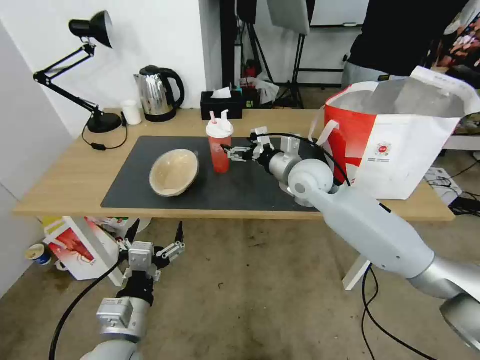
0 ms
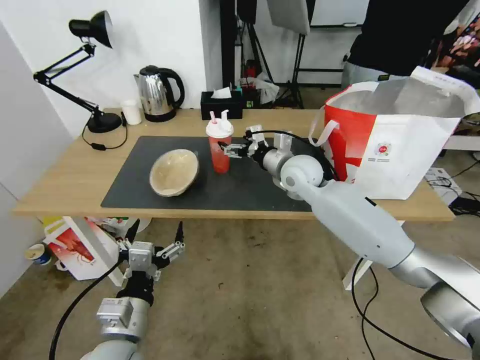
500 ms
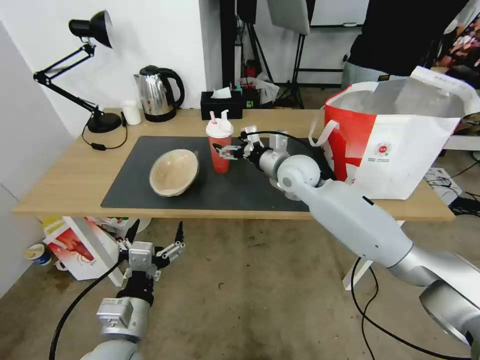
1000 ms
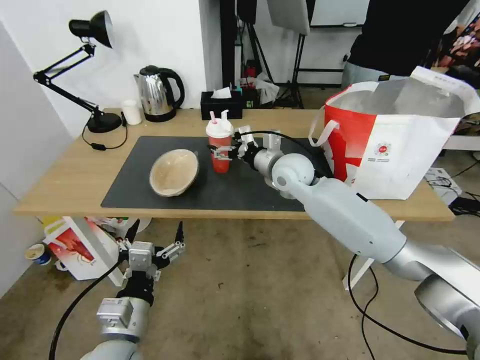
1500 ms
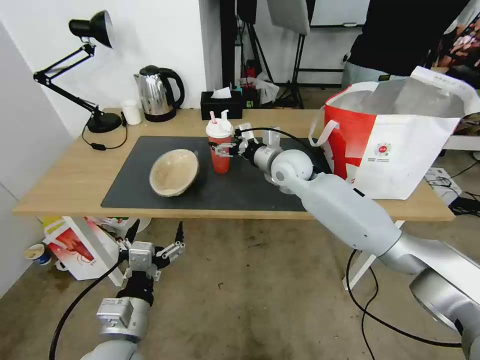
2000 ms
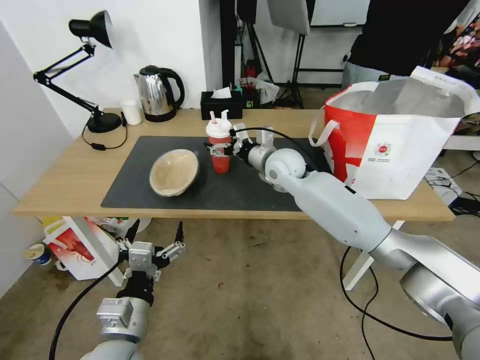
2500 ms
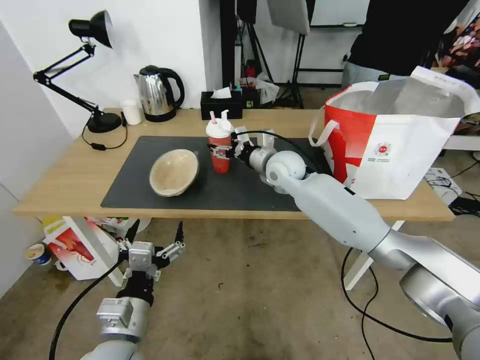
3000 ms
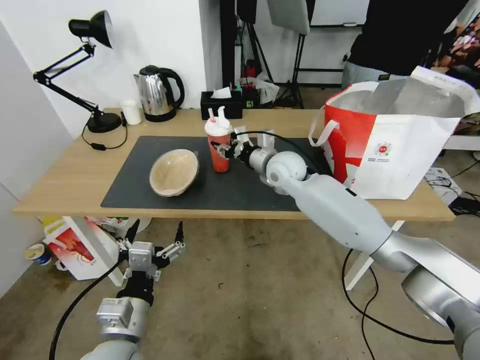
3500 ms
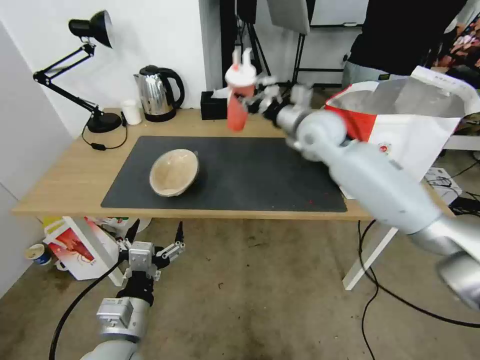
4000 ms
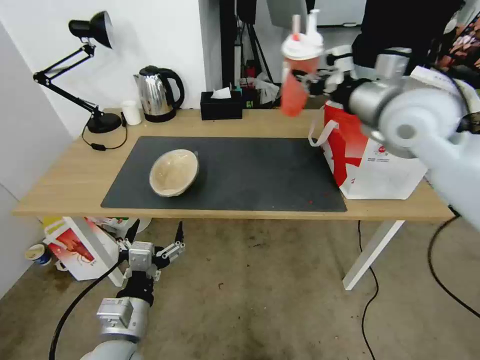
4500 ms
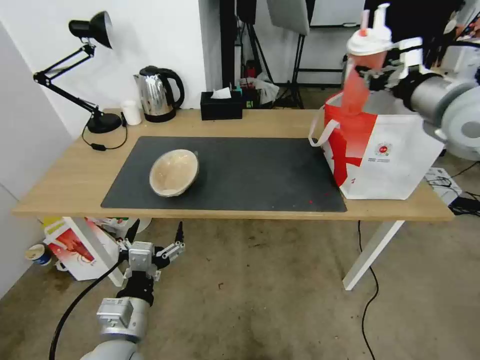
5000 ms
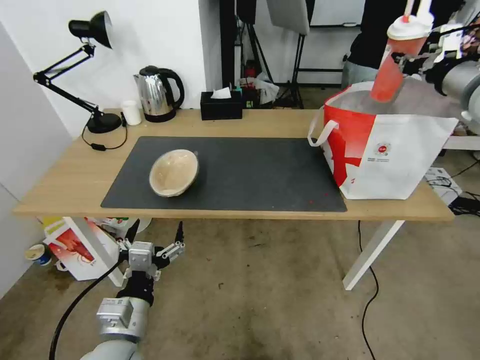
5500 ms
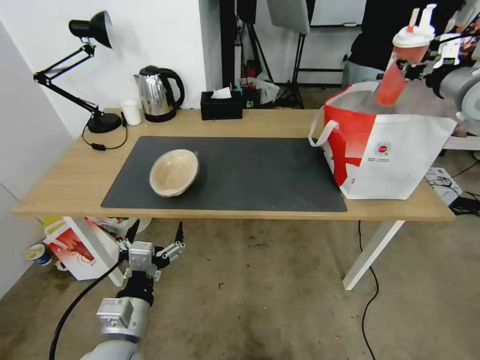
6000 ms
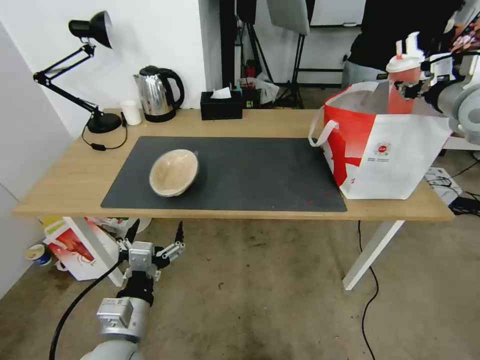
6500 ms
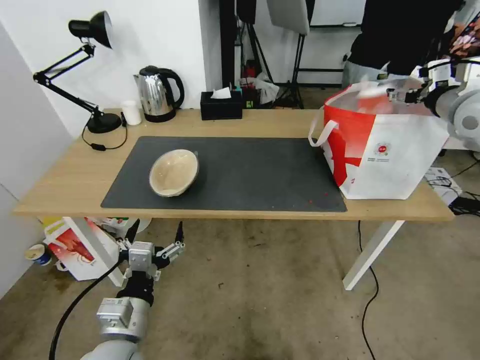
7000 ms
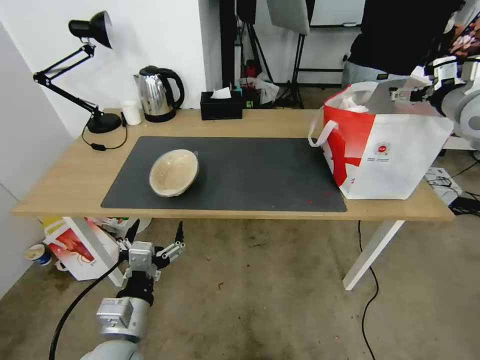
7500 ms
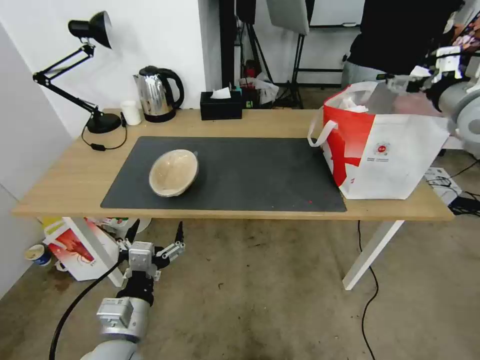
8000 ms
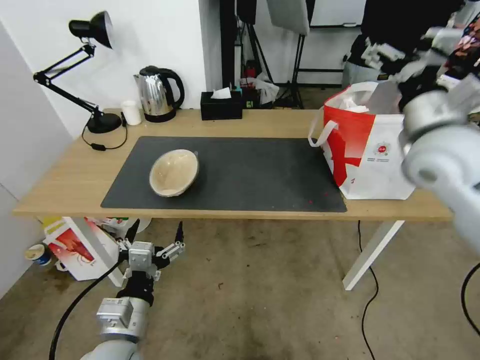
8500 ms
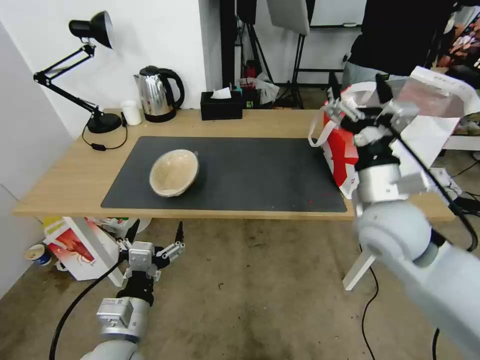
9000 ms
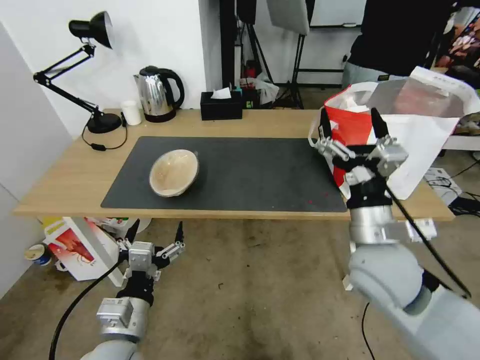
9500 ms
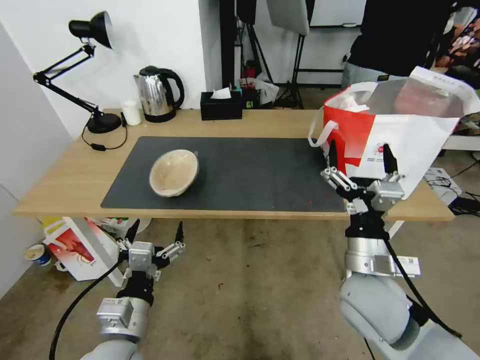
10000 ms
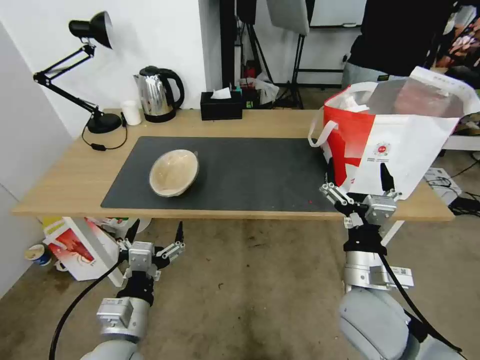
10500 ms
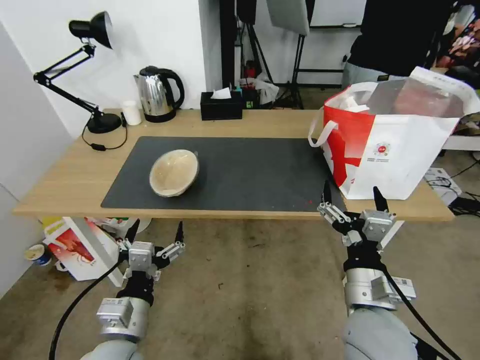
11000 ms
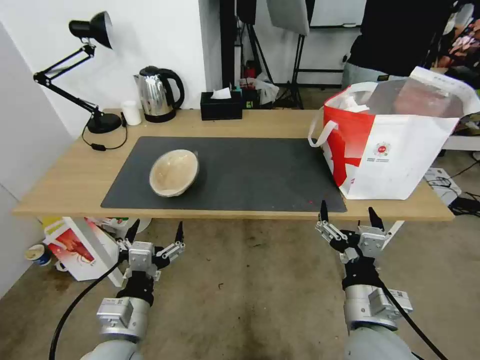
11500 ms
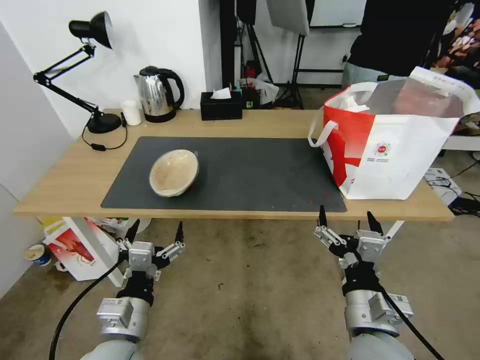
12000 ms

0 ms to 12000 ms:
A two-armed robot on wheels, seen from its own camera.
Task of the whole recording: Pick up the trash from the table and place it into the takeout bag.
0 ms to 2000 ms: The right gripper moves approximately 5 cm.
2000 ms to 4000 ms: The right gripper heads upward, covering about 5 cm, and closes up.
4000 ms to 6000 ms: The right gripper shifts some 30 cm to the right and upward.
6000 ms to 8000 ms: The right gripper opens its fingers.
8000 ms to 10000 ms: The right gripper goes roughly 35 cm downward, backward and to the left.
10000 ms to 12000 ms: The right gripper travels backward by approximately 10 cm.

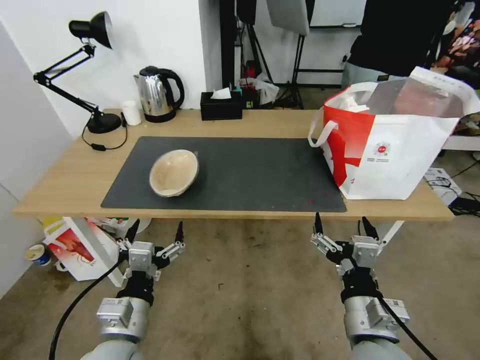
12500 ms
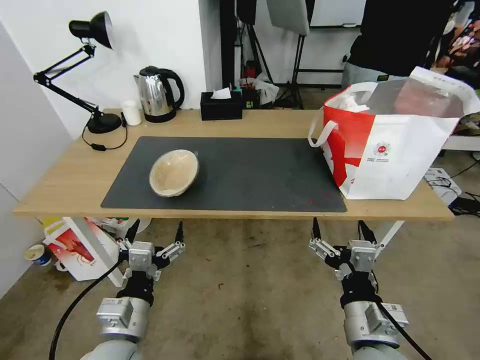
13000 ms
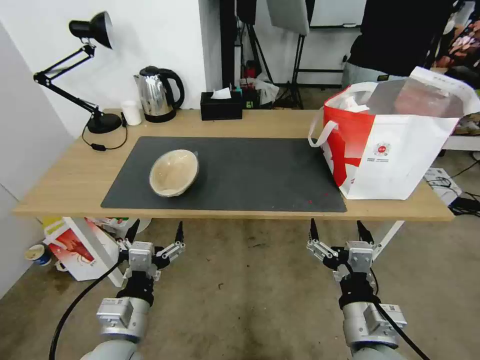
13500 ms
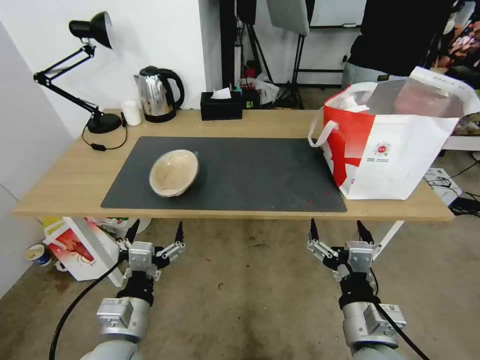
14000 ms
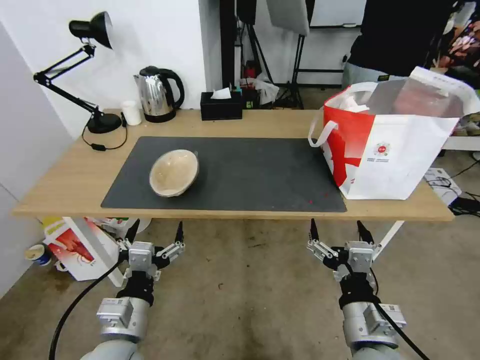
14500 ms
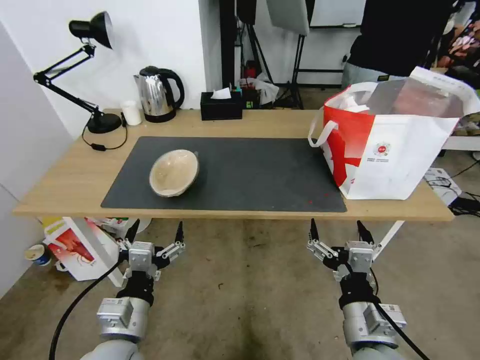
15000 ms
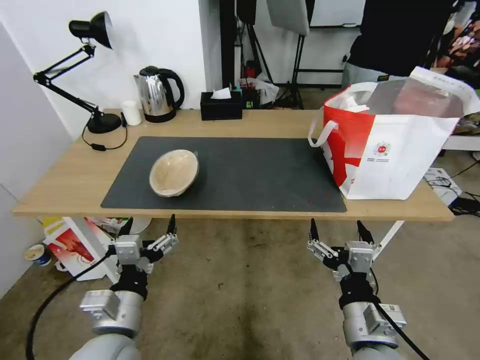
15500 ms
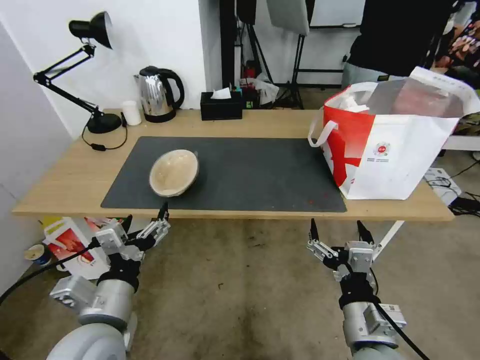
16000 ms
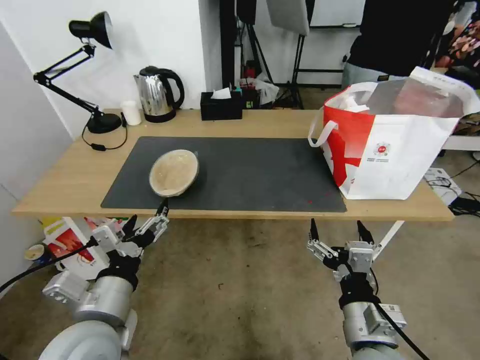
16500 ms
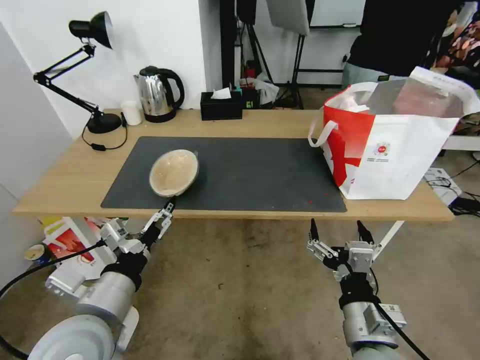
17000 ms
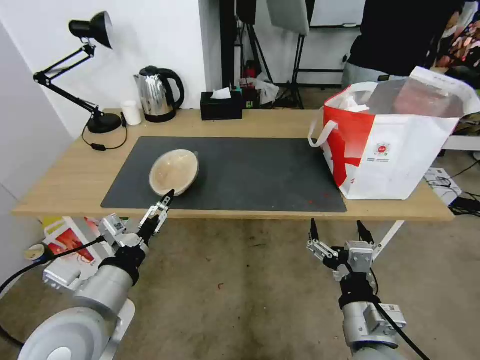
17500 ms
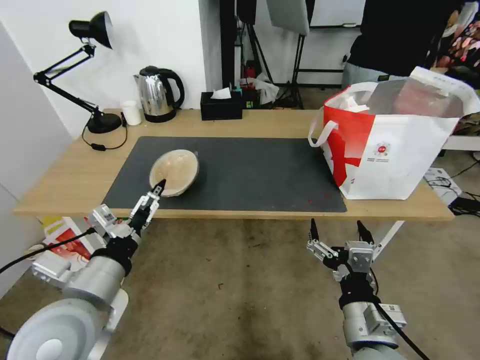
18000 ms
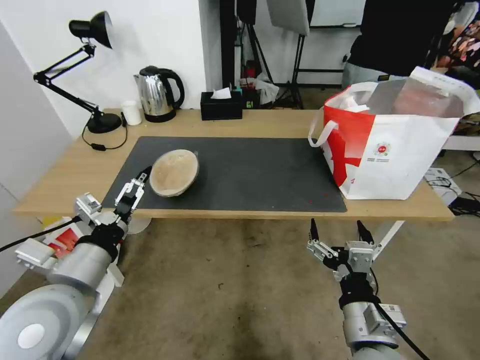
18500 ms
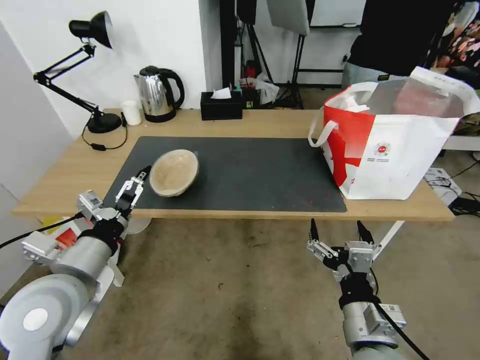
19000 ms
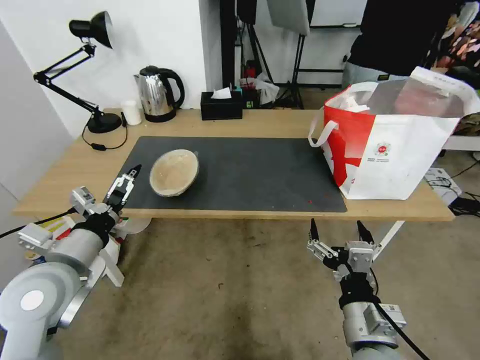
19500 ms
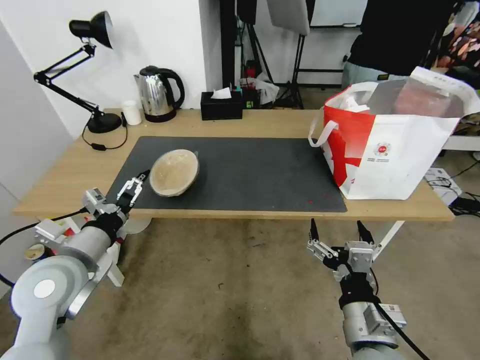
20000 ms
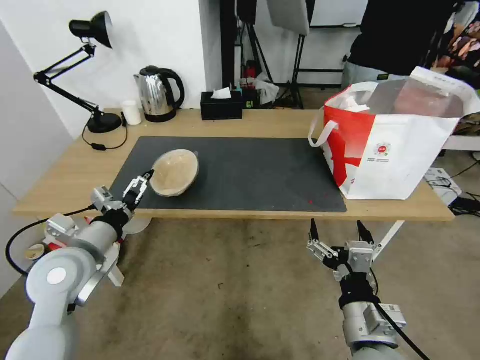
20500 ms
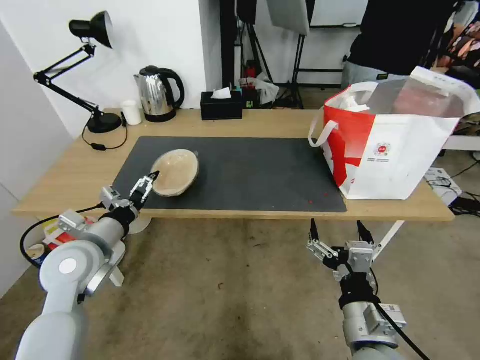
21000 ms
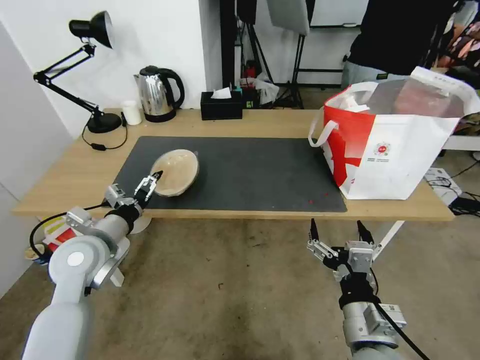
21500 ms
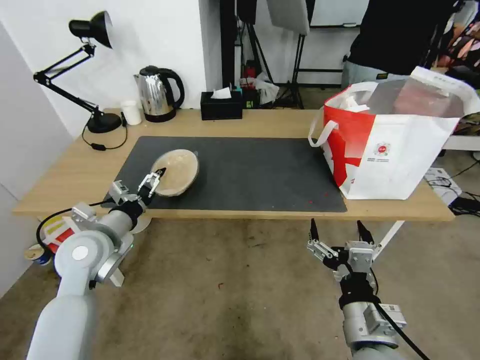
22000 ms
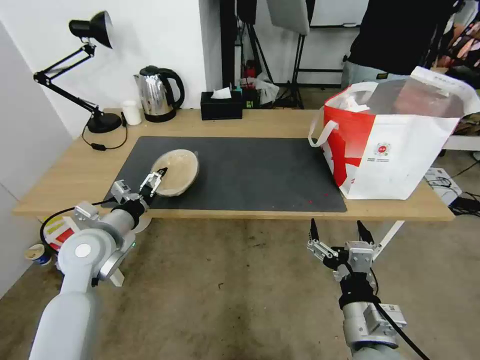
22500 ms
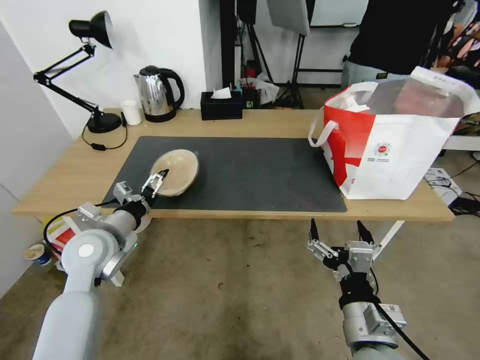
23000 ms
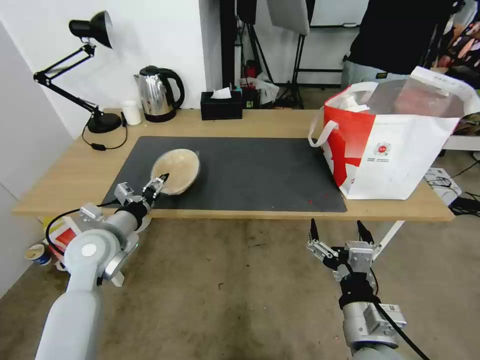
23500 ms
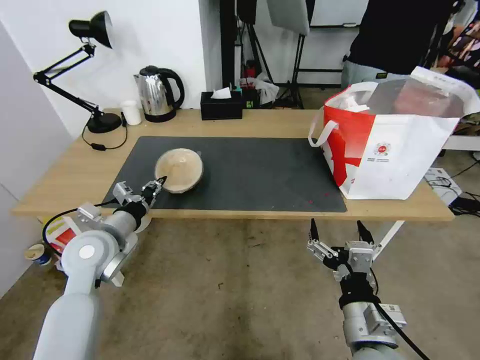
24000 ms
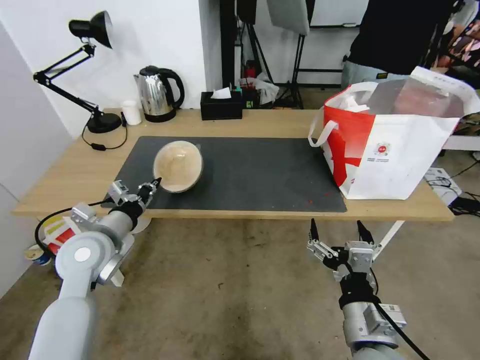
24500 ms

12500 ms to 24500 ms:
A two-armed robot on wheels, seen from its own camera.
Task of the whole recording: Pick up the trash from the table and place it into the takeout bag.
12500 ms to 14500 ms: Both grippers stay about where they are.
14500 ms to 16500 ms: The left gripper moves upward, approximately 10 cm.
16500 ms to 18500 ms: The left gripper moves approximately 5 cm.
18500 ms to 20500 ms: The left gripper heads forward, covering roughly 10 cm.
20500 ms to 22500 ms: The left gripper changes place by about 5 cm.
22500 ms to 24500 ms: The left gripper closes its fingers.

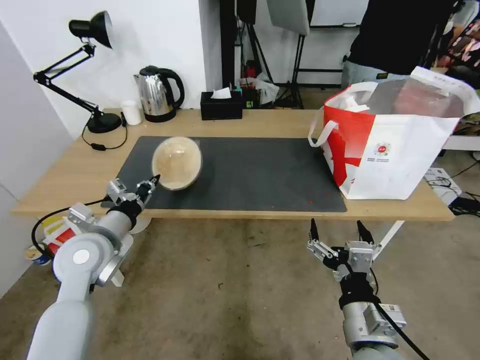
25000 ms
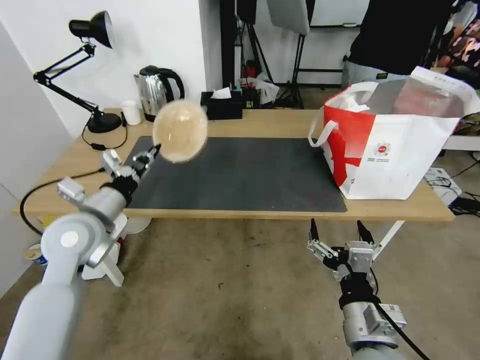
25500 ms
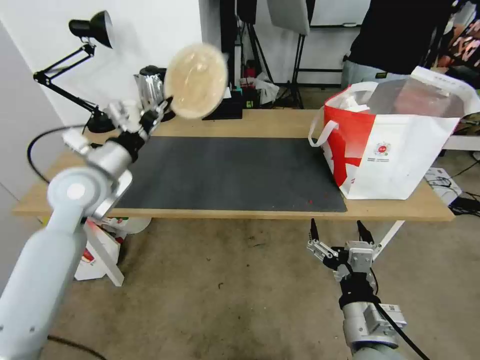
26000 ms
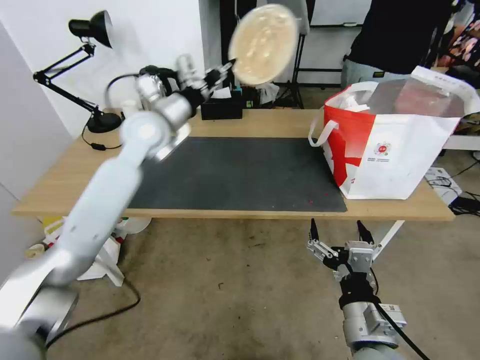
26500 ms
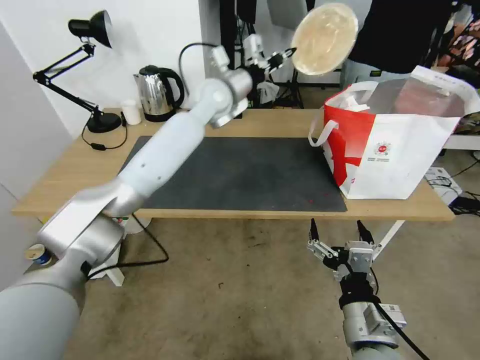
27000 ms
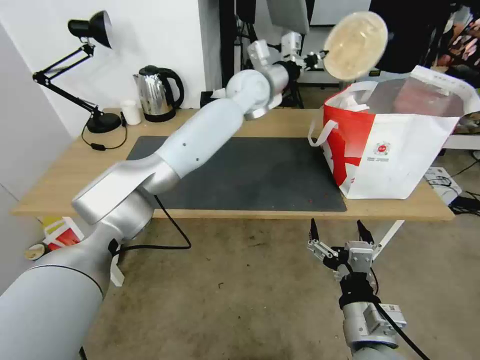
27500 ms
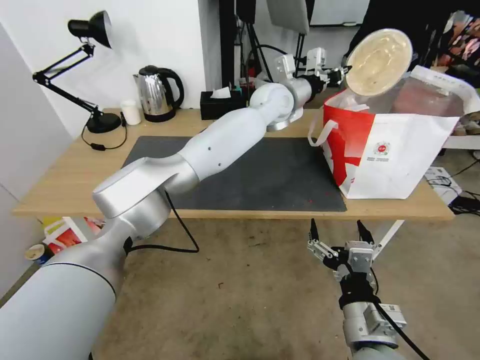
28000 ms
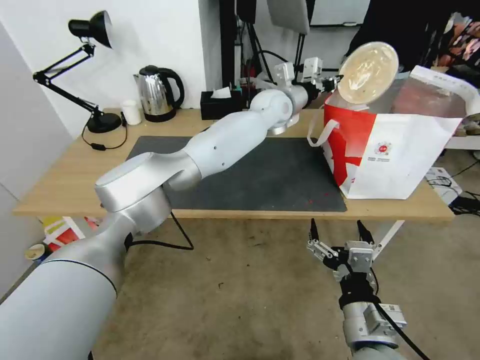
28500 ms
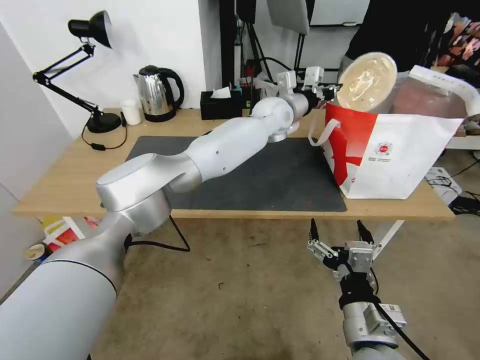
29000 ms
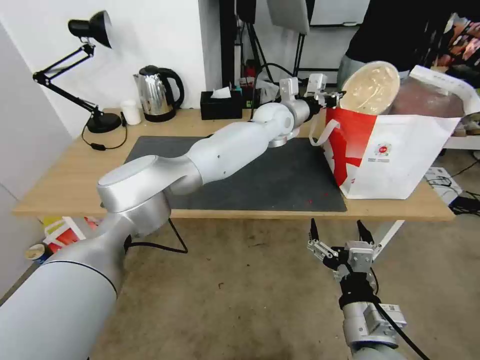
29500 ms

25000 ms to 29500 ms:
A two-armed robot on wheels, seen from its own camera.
Task of the whole recording: Pick up the trash from the table and place it into the takeout bag.
25000 ms to 27000 ms: The left gripper moves forward, to the right and upward, roughly 40 cm.
27000 ms to 29500 ms: The left gripper is displaced to the right and downward by approximately 15 cm.
